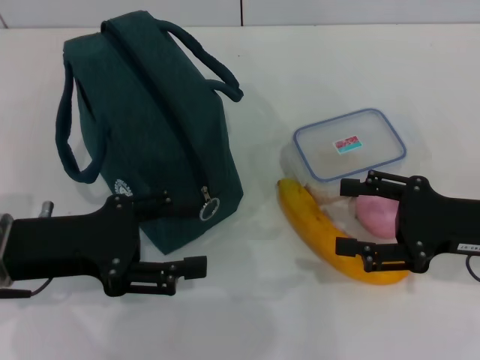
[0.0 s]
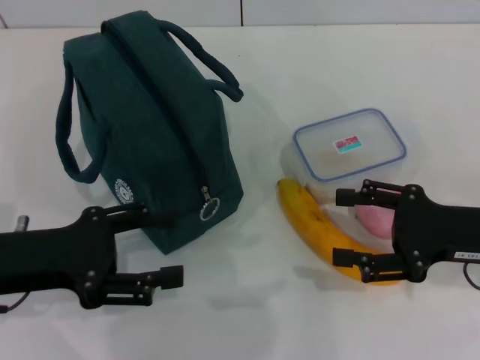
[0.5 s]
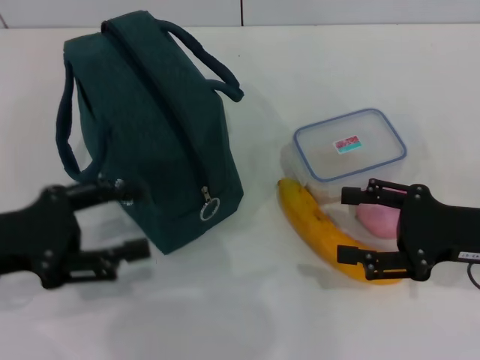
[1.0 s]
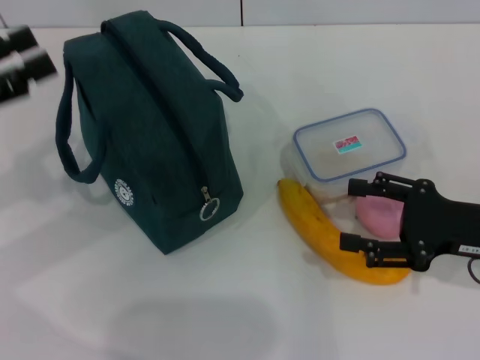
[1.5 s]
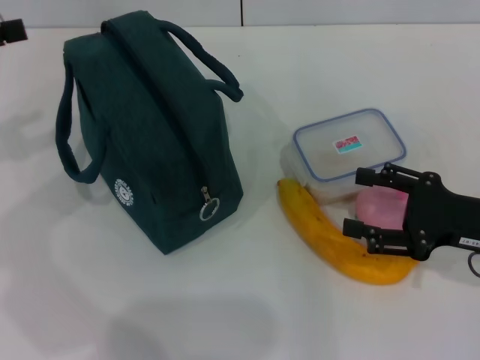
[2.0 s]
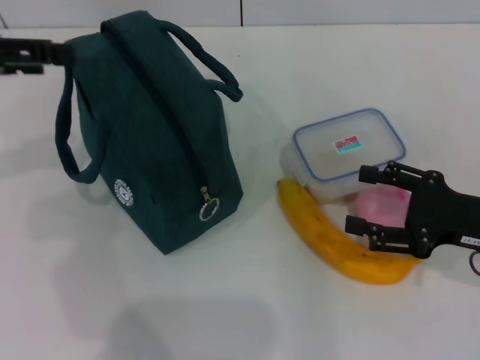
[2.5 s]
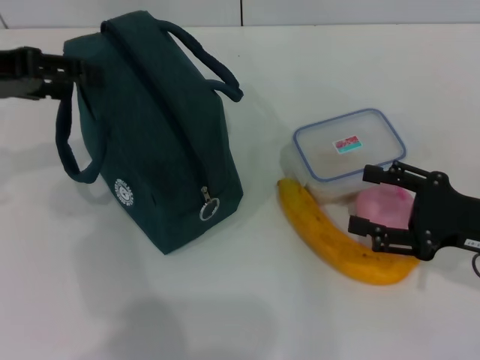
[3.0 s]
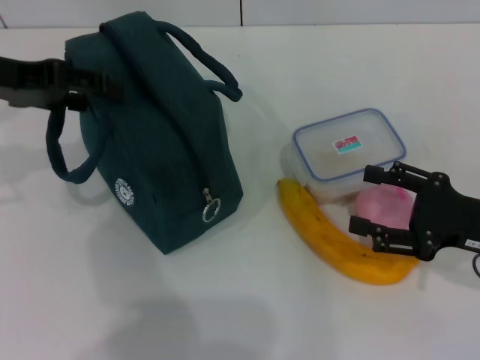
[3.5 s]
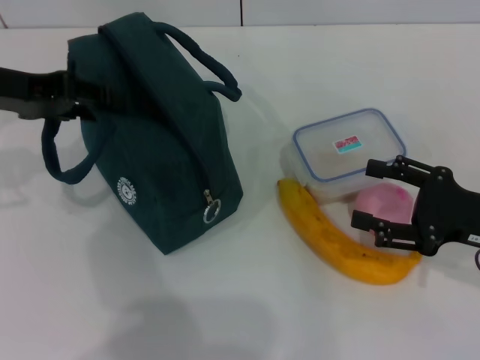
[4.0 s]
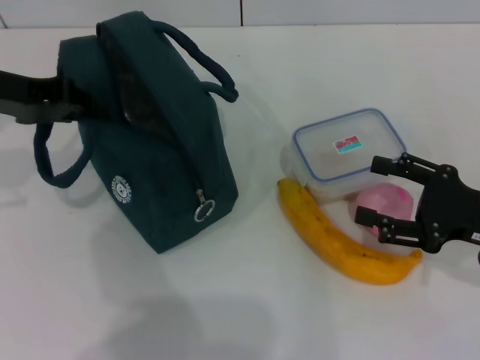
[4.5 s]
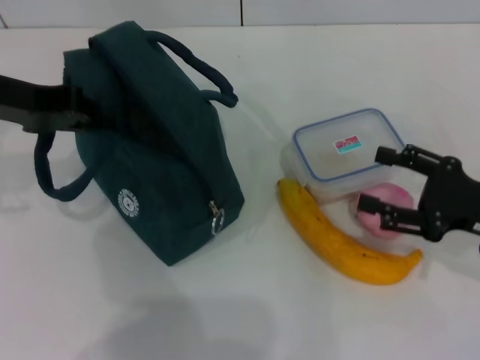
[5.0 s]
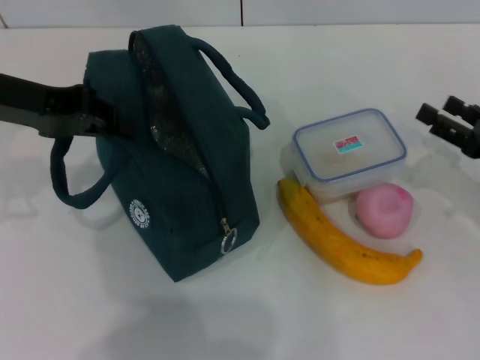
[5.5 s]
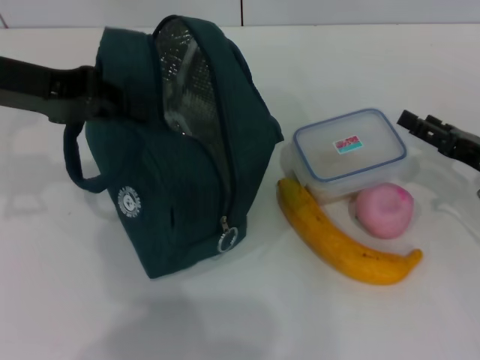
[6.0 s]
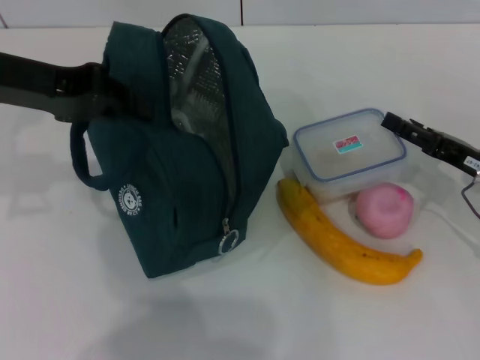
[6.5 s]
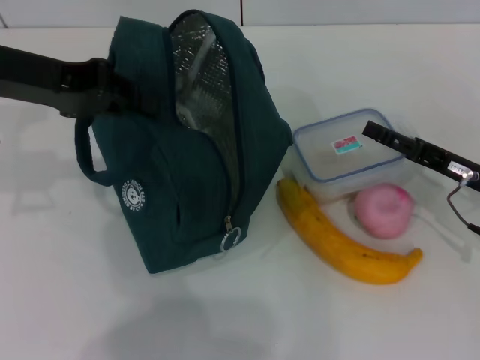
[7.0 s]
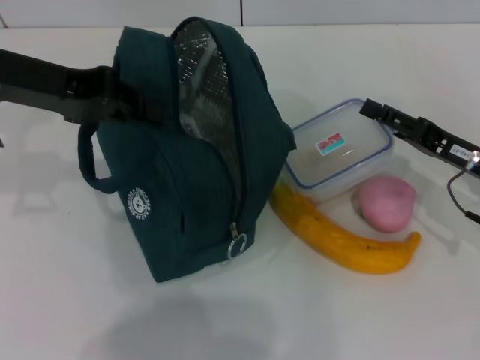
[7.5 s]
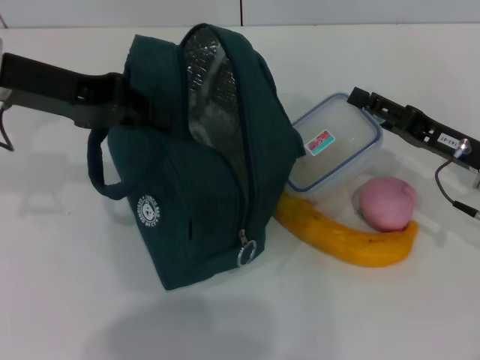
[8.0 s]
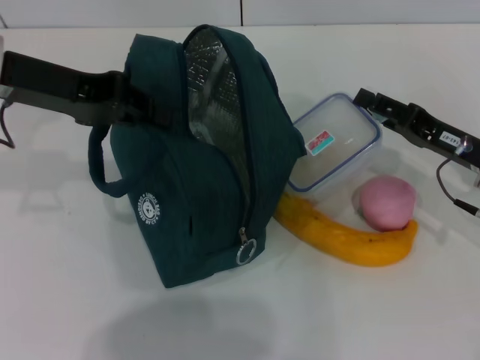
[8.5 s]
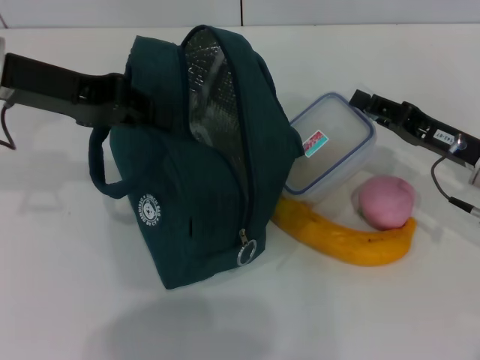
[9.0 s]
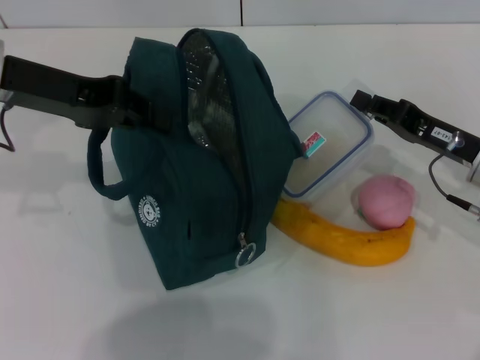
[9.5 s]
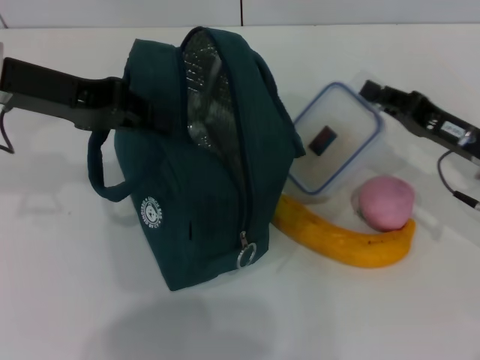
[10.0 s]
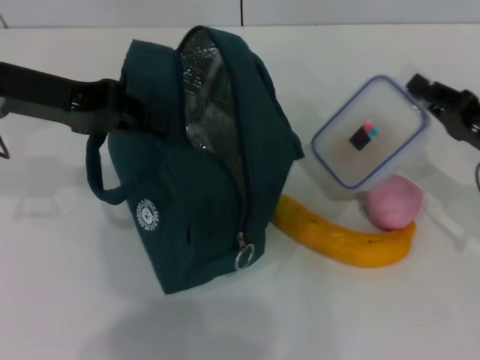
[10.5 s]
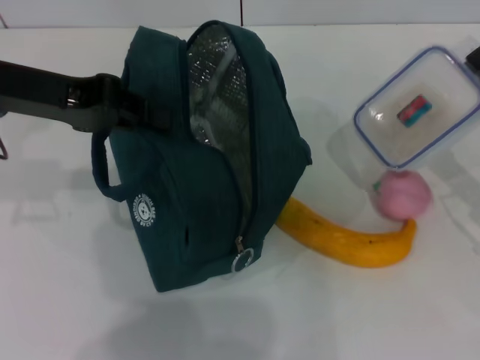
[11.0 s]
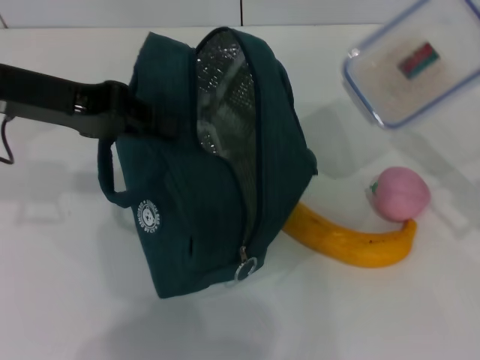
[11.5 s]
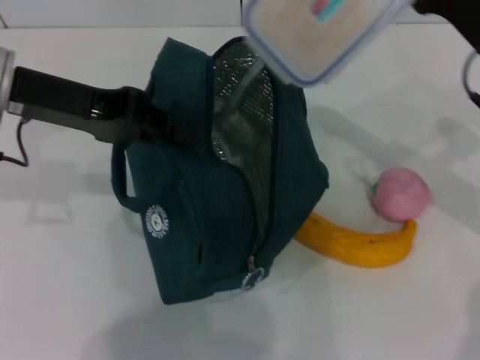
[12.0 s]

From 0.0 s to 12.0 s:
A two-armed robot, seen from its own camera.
Step, from 0.0 s to 4.0 s: Hold the lunch bag with your left hand.
Step, from 4.5 s to 9.0 s: Pick up the lunch box with your right hand.
From 0.0 s to 2.0 s: The left gripper moves to the left, upward and forward, roughly 15 cm.
From 2.0 s to 4.0 s: The left gripper moves to the right, about 10 cm.
From 4.0 s to 6.0 s: The left gripper closes. Meanwhile the right gripper ends up roughly 5 cm from where it was.
From 6.0 s to 8.0 s: The right gripper shifts by about 5 cm.
From 8.0 s to 10.0 s: The right gripper closes.
From 10.0 s to 12.0 s: The right gripper heads upward, covering approximately 10 cm.

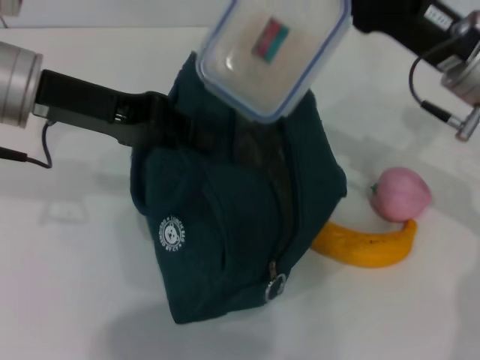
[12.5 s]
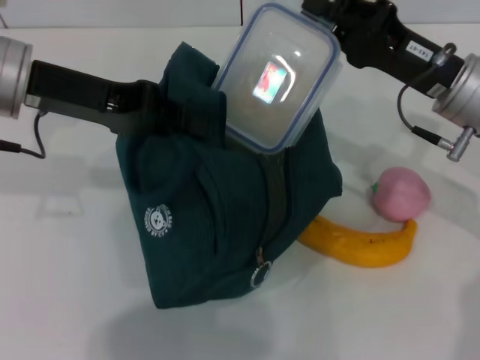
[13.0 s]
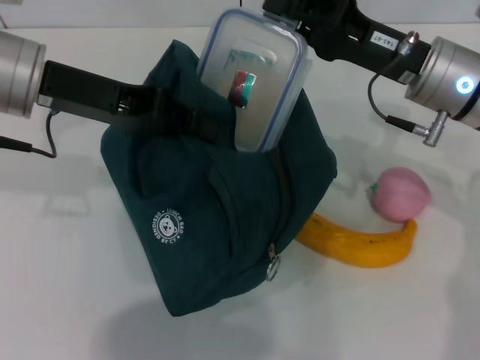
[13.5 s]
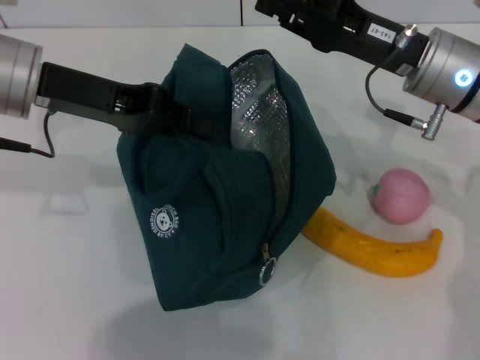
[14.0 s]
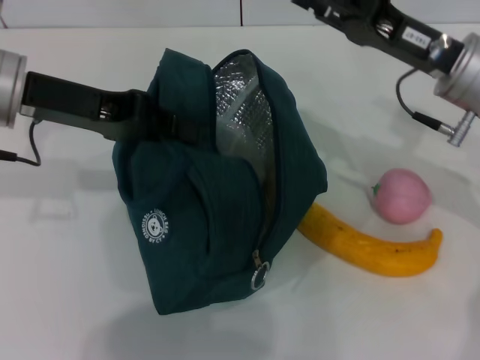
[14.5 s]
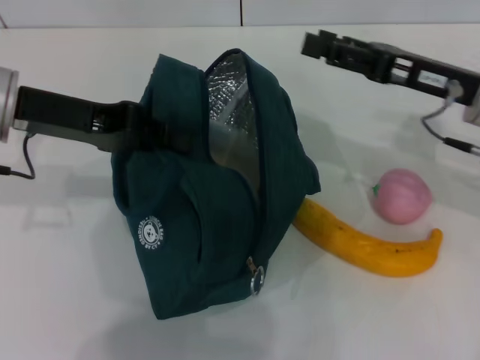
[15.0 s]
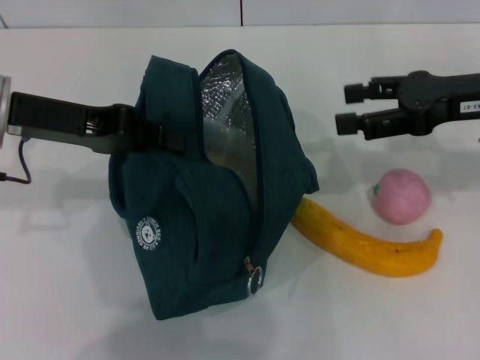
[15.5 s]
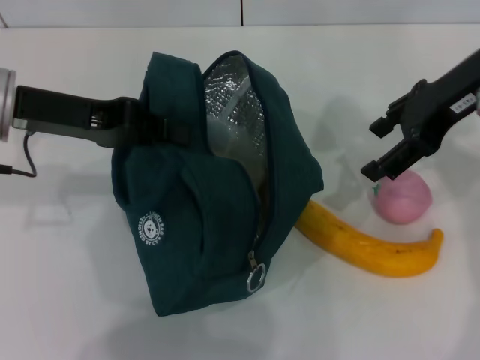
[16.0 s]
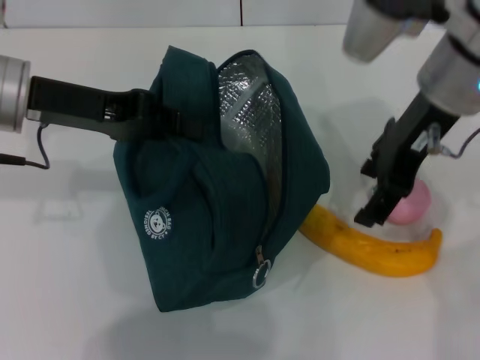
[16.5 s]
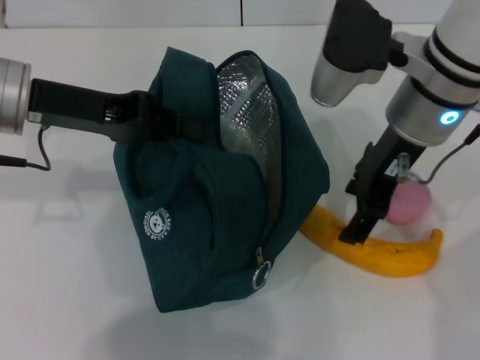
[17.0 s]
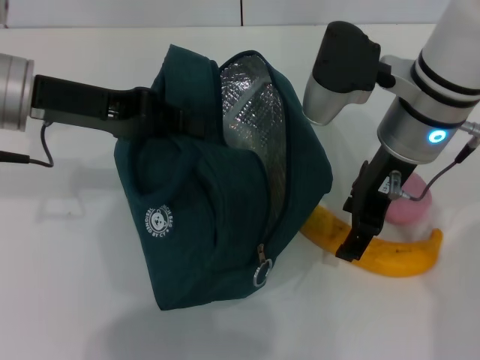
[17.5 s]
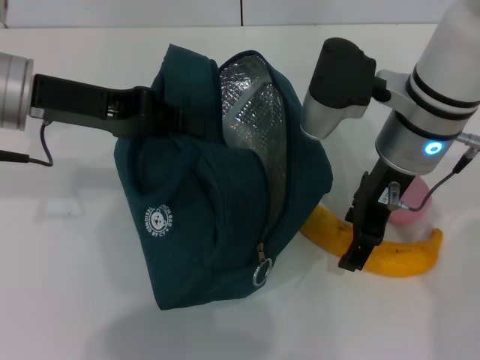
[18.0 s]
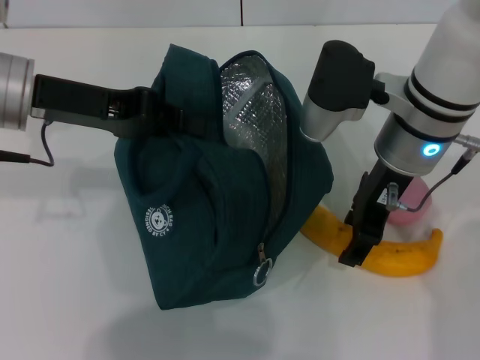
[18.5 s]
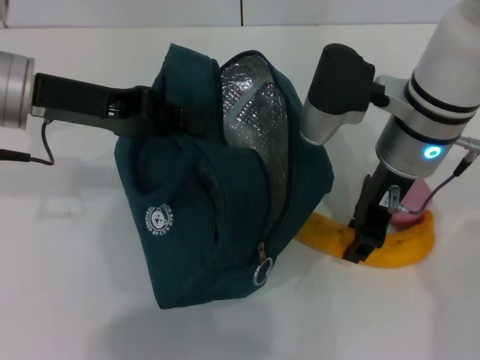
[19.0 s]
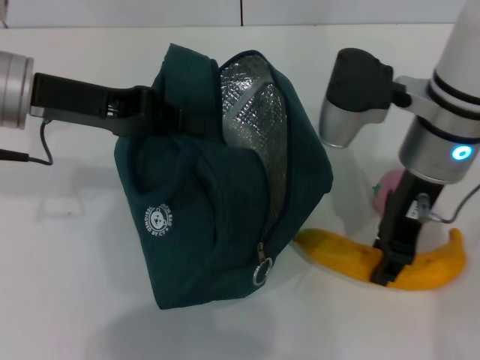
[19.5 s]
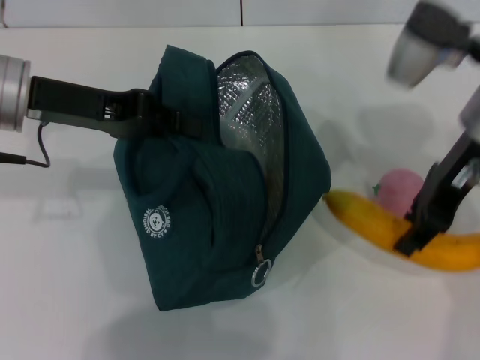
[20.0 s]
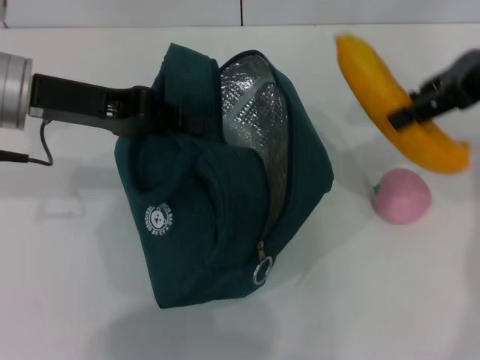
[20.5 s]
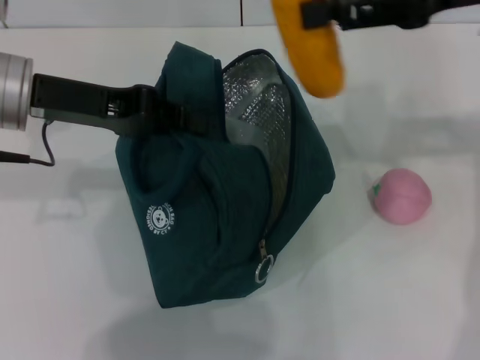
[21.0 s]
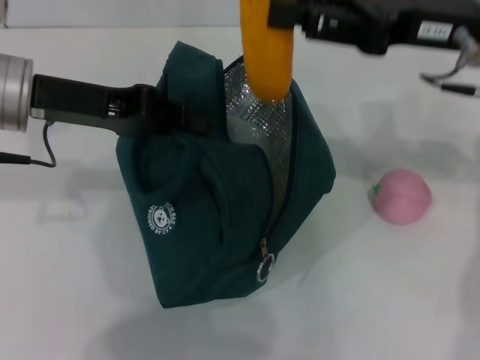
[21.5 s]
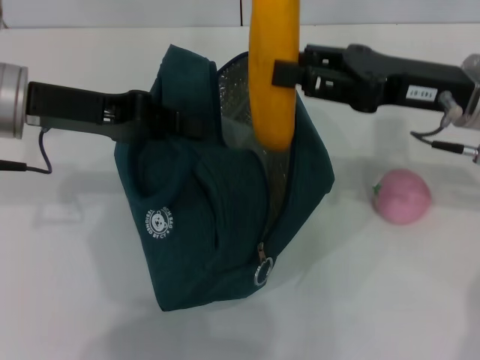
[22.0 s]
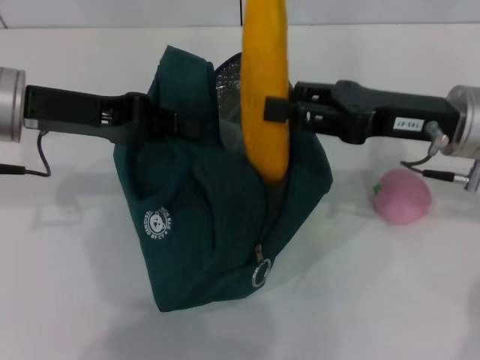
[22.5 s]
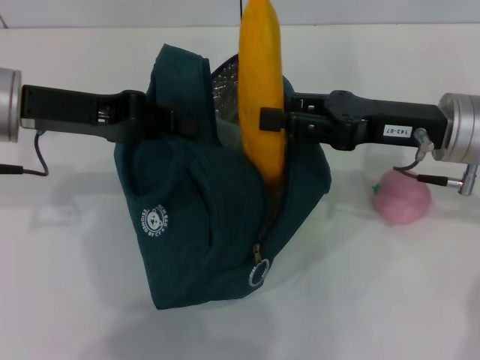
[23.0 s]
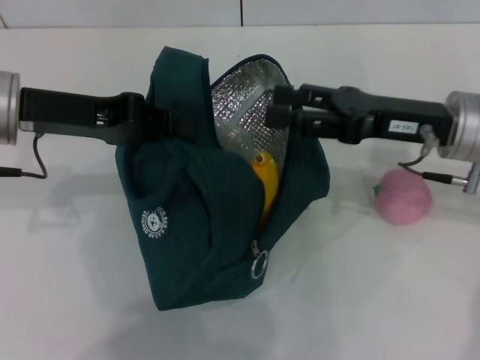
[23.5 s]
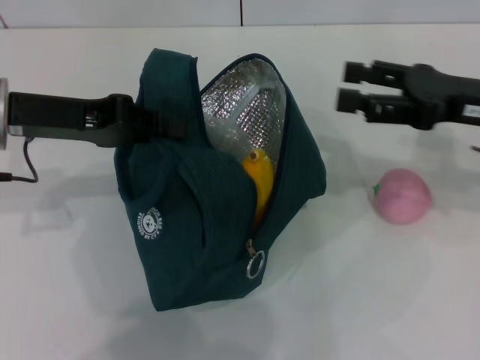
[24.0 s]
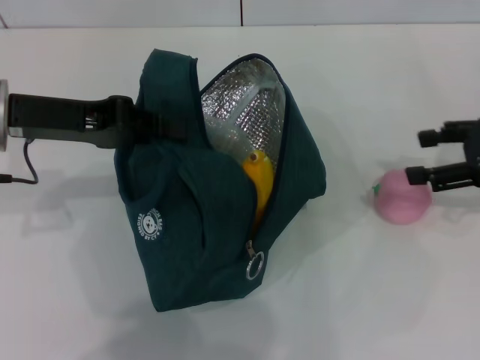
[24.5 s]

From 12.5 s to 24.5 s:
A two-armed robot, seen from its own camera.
Step, from 14.0 s to 19.0 s: Take the banana with your right hand.
Step, from 19.5 s to 23.0 s: Put the banana into the lunch bag with your right hand.
From 14.5 s to 16.5 s: The right gripper is displaced upward and to the left by some 10 cm, and opens its fingers.
From 16.5 s to 18.5 s: The right gripper shifts about 5 cm downward.
From 18.5 s to 20.5 s: The right gripper shifts about 15 cm to the right and upward, and closes its fingers.
From 20.5 s to 22.5 s: The right gripper moves downward and to the left, some 15 cm.
From 22.5 s to 24.5 s: The right gripper shifts about 10 cm to the right, and opens.

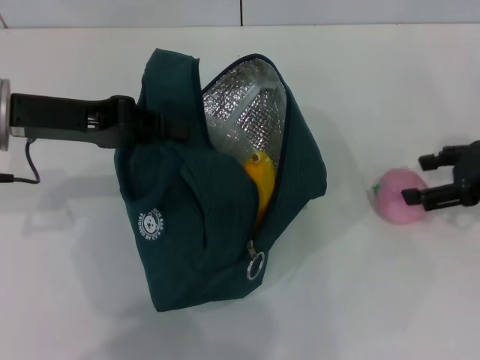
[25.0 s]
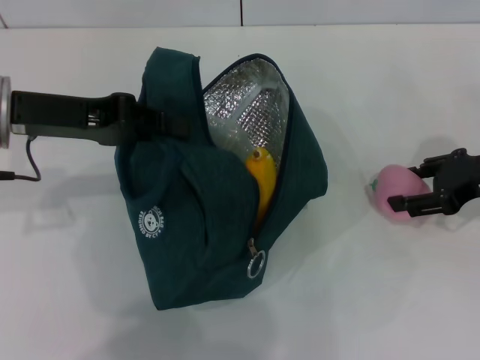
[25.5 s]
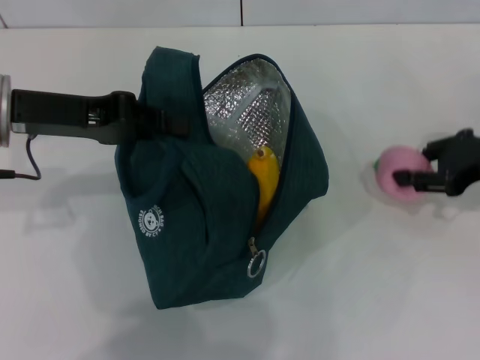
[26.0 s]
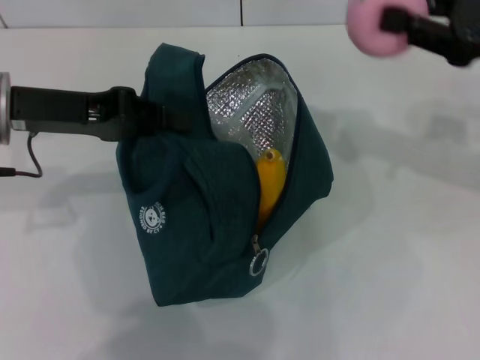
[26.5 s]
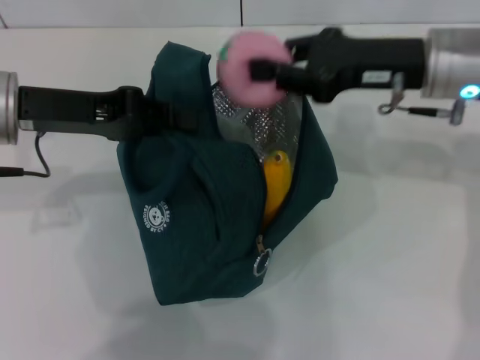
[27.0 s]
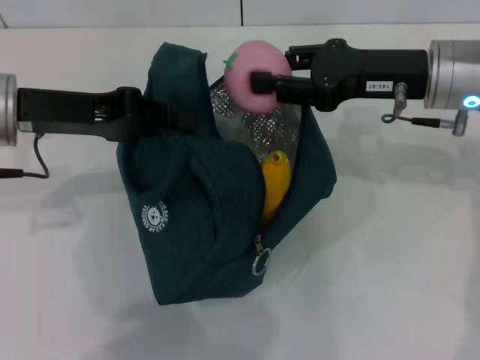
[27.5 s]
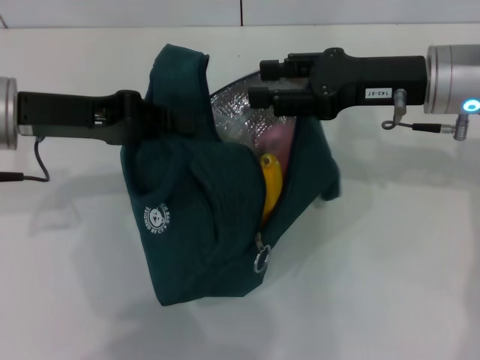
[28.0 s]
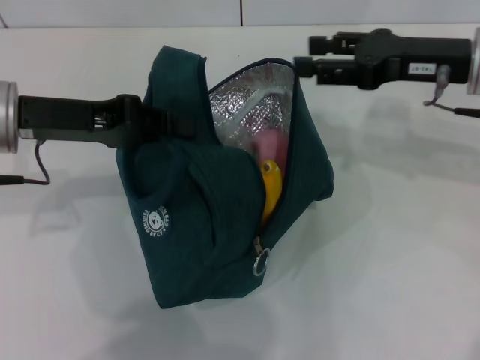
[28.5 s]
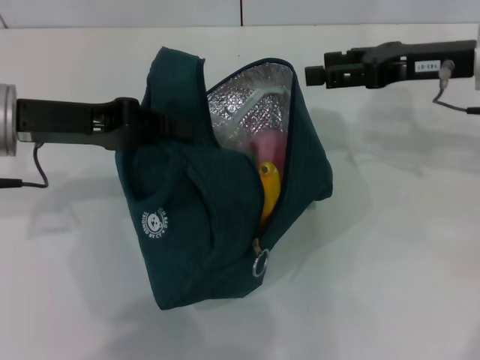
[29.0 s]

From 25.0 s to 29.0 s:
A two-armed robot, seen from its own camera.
From 25.0 s to 27.0 s: The right gripper is displaced to the left and upward by some 15 cm, and closes its fingers.
From 27.0 s to 29.0 s: The right gripper opens up.
